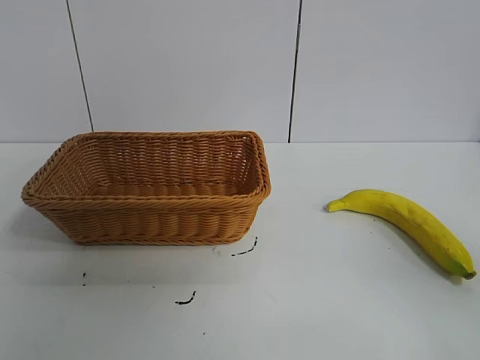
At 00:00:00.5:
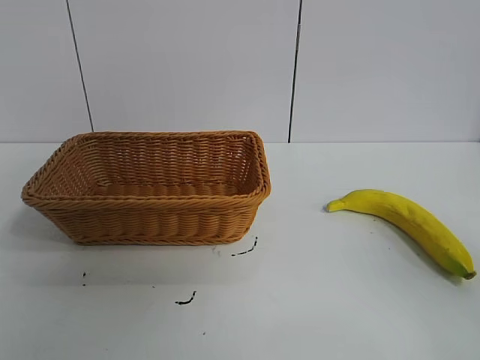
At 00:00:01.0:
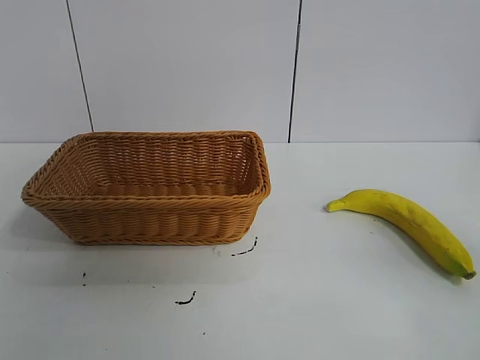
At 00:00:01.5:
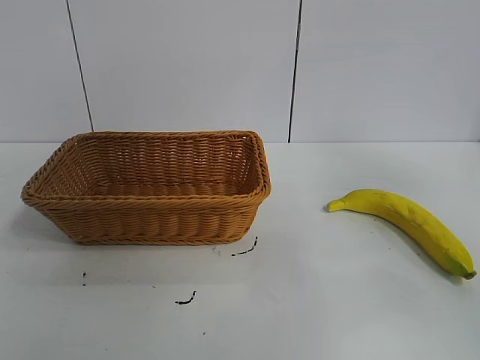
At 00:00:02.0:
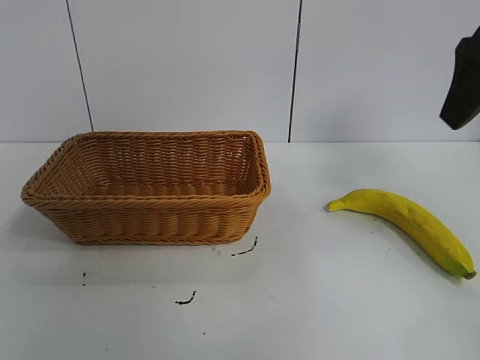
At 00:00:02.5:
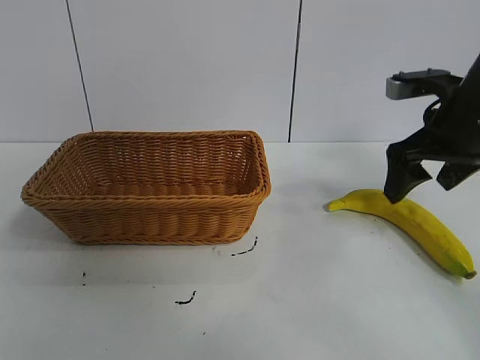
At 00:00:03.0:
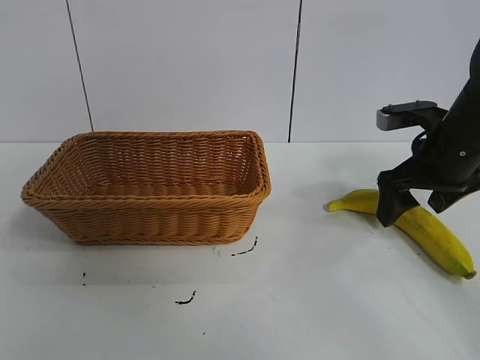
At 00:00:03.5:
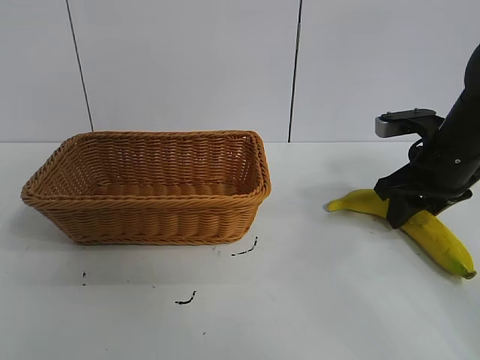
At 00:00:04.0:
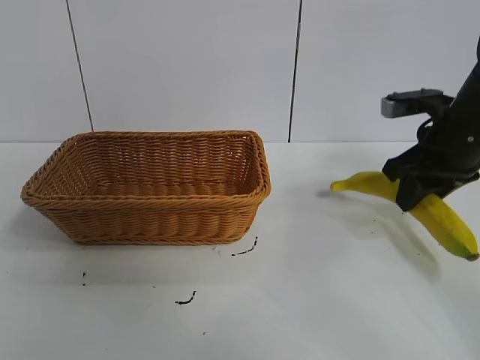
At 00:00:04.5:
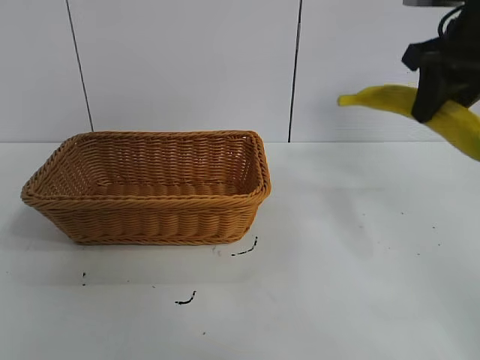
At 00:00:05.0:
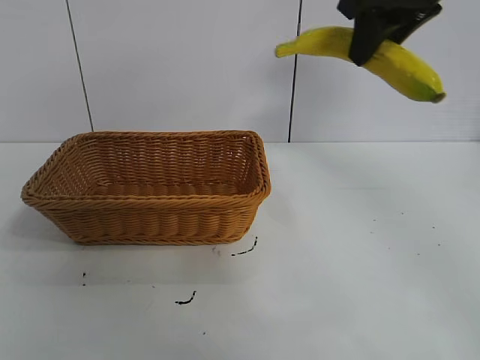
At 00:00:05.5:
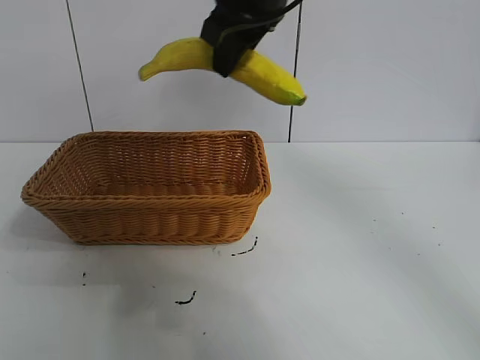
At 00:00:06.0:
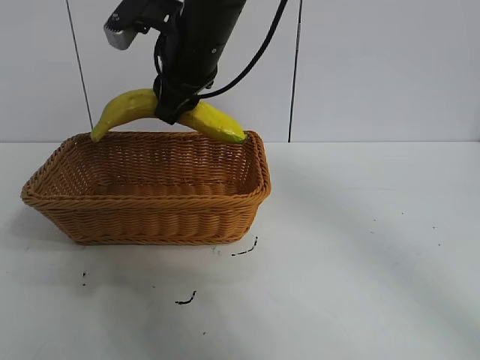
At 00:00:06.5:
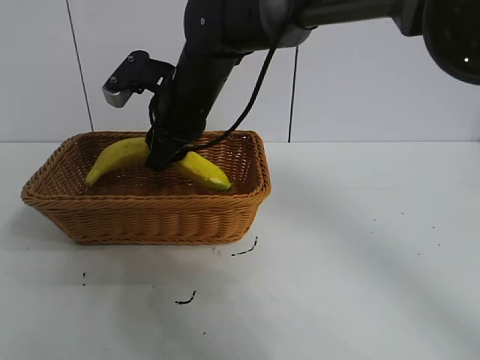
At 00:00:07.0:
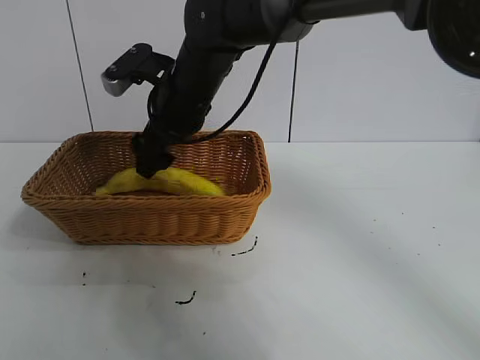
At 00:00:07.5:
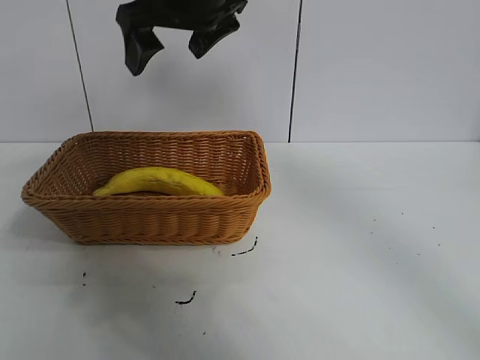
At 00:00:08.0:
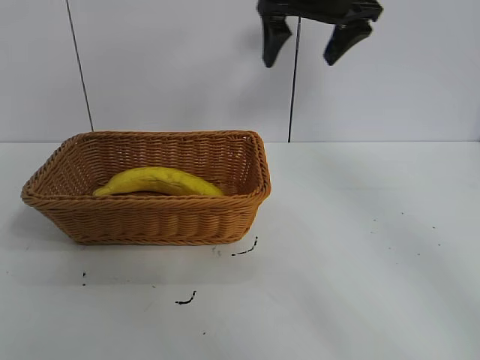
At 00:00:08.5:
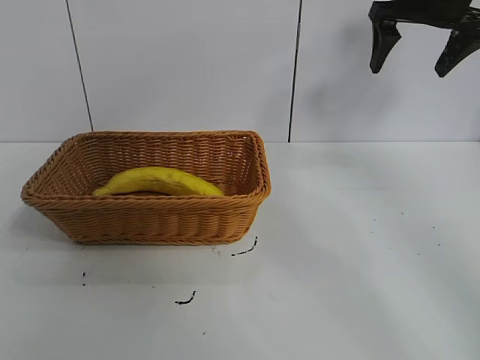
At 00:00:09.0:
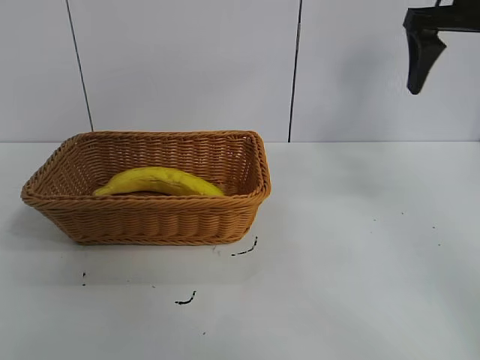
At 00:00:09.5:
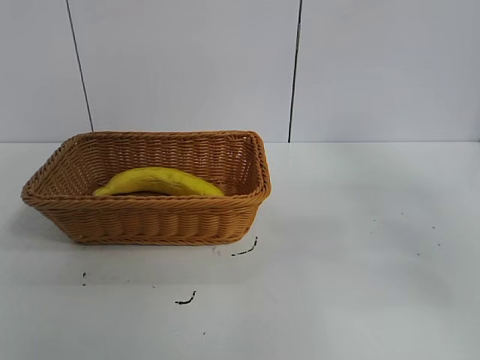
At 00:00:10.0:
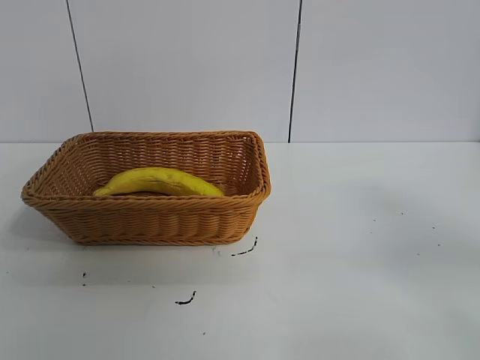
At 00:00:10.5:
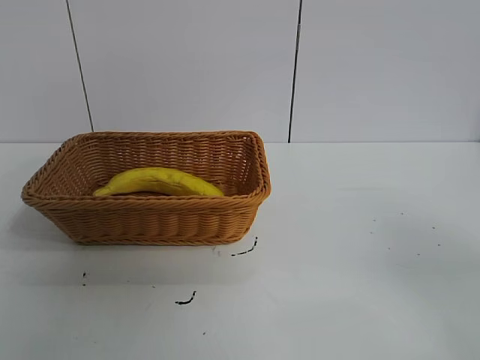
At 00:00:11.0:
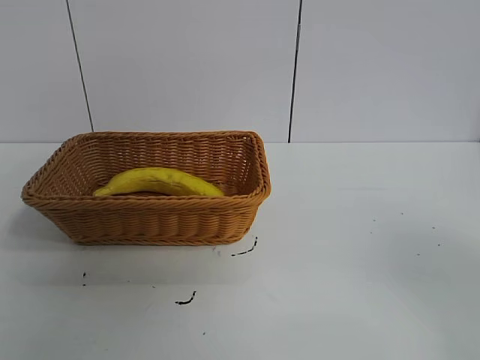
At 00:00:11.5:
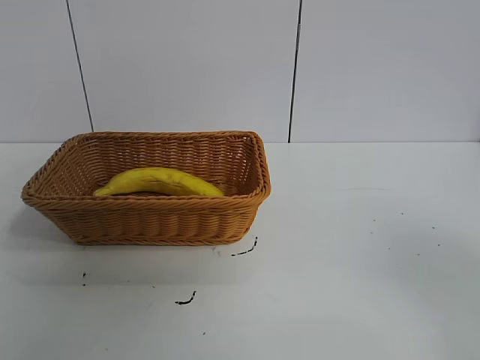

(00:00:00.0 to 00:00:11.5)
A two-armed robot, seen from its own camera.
Task of the whole recording: pick up the banana and put it into the basket.
Step, 00:00:01.5 - 00:00:03.5: Grasp the banana with right gripper.
Step, 00:00:04.0 - 00:00:07.0: Place the banana in the basket with right gripper.

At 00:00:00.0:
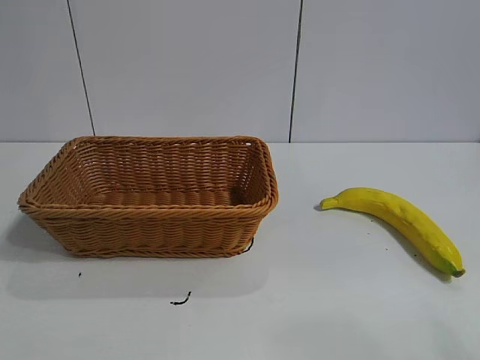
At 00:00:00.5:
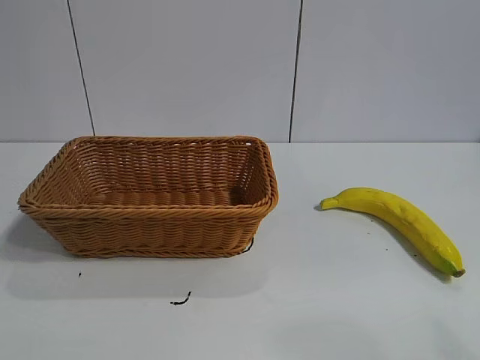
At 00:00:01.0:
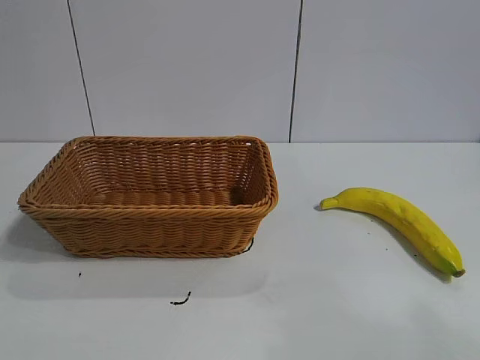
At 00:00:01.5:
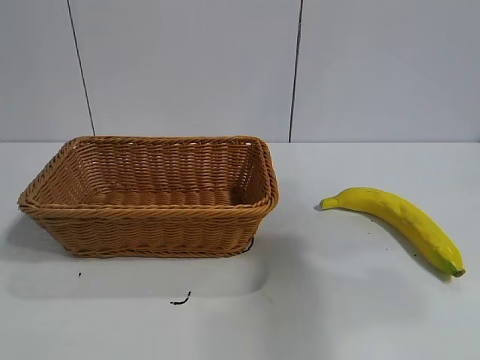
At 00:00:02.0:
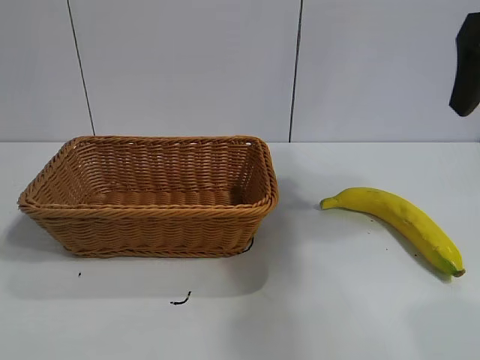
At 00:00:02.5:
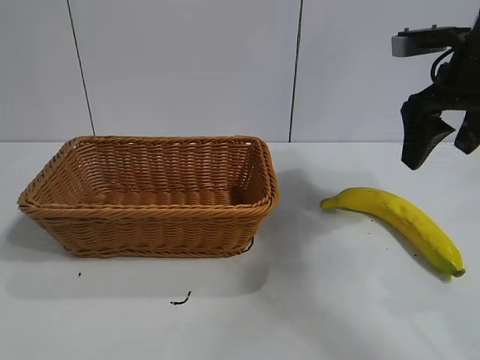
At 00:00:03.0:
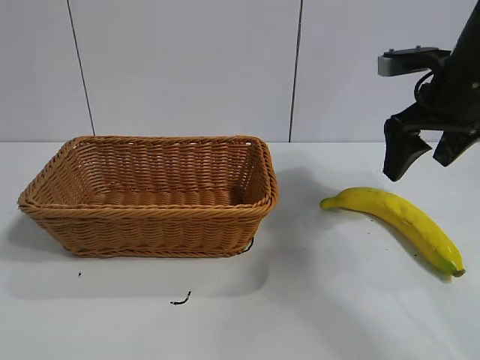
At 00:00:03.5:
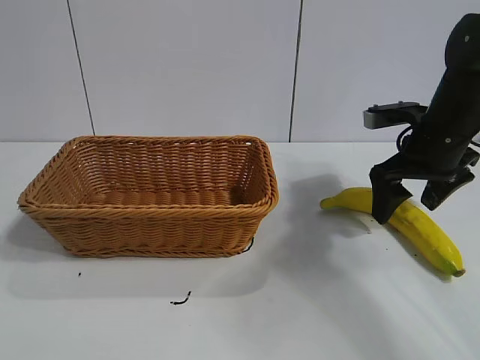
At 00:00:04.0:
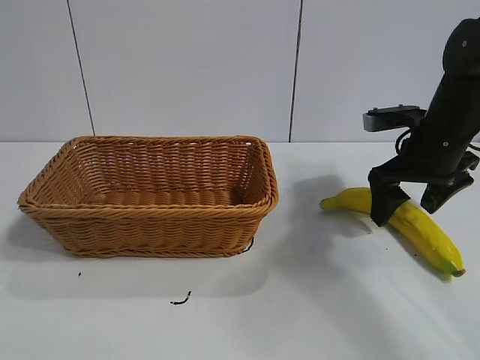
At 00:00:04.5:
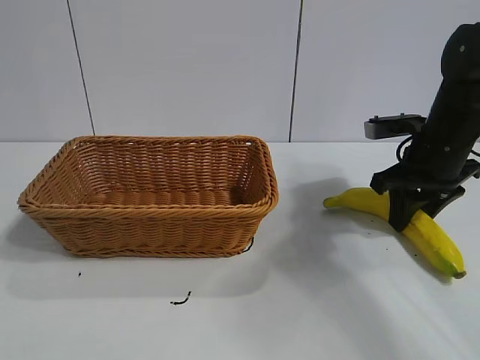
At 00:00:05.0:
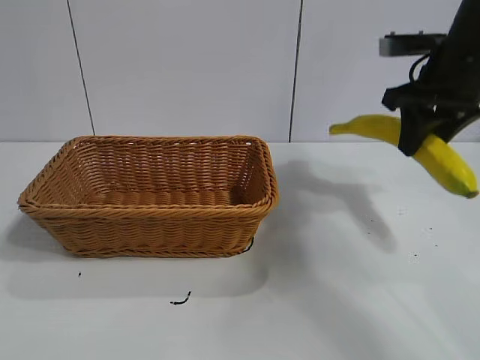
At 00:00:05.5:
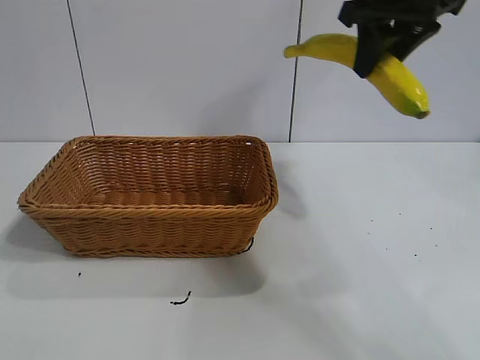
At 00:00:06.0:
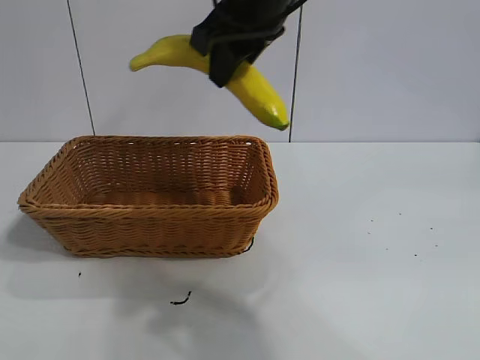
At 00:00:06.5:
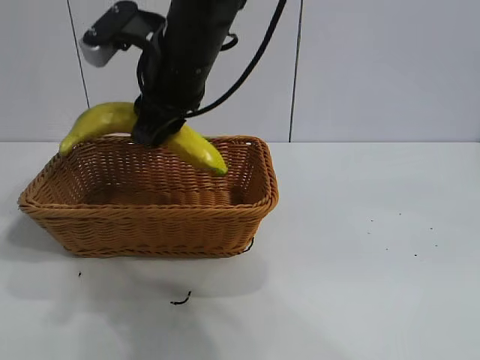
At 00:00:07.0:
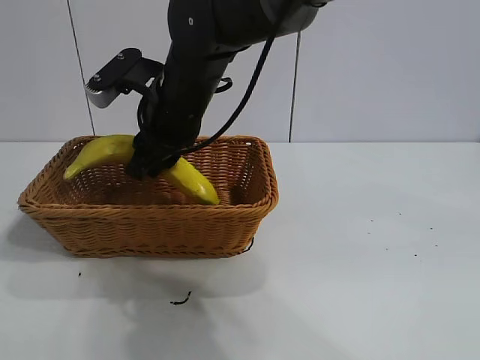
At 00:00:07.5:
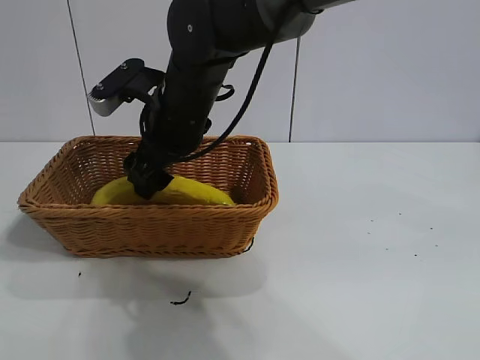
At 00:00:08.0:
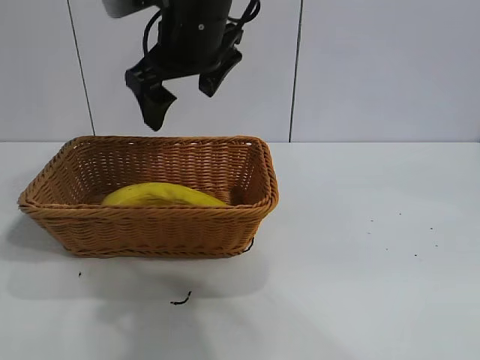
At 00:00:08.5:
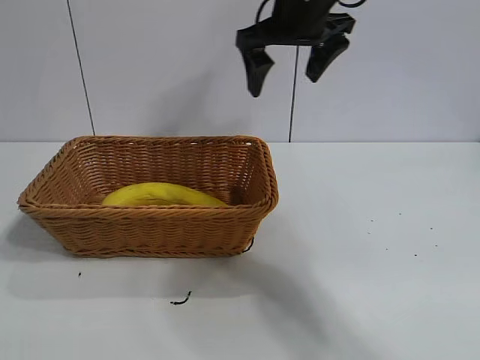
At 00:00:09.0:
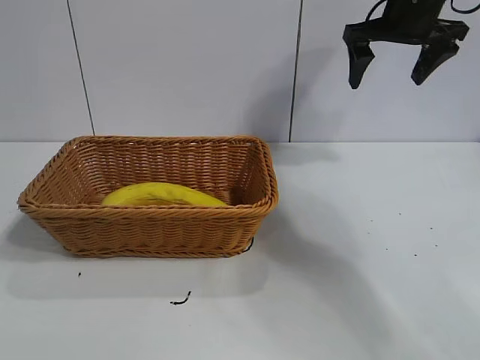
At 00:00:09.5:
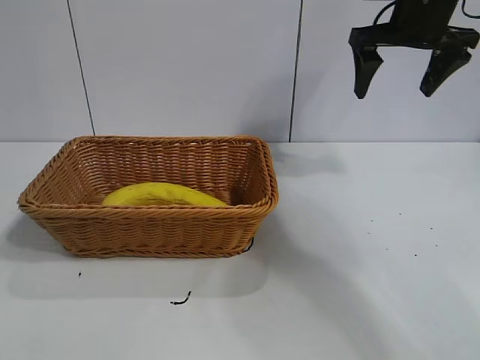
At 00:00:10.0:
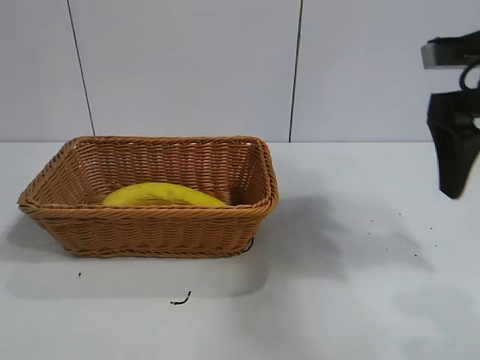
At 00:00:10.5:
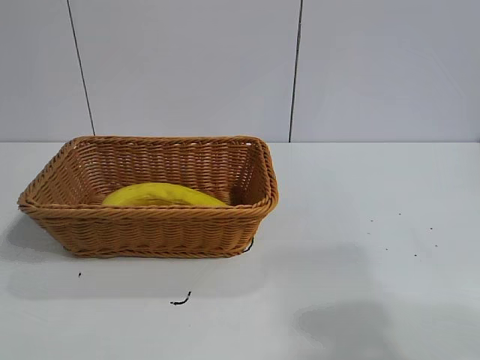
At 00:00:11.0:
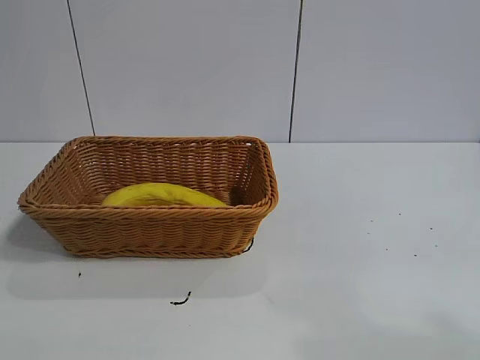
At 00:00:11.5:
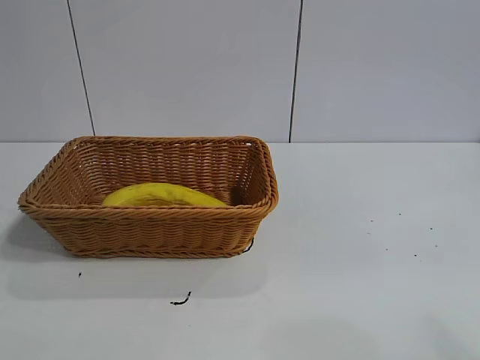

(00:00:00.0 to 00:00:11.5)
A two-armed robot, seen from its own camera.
Task of the whole recording: pick up the banana and put it into the basket.
Step, 00:00:02.0 - 00:00:04.5: Grasp the banana with right gripper.
Step, 00:00:05.0 - 00:00:07.5: Place the banana in the basket with right gripper.
